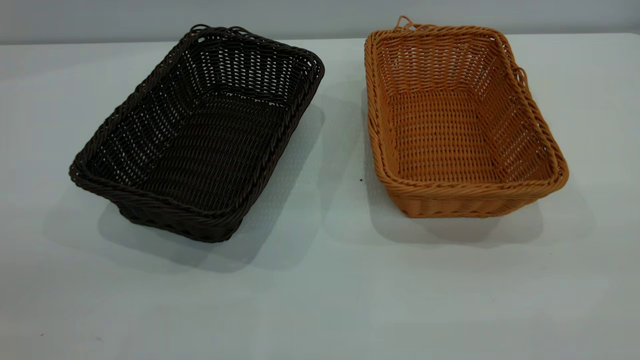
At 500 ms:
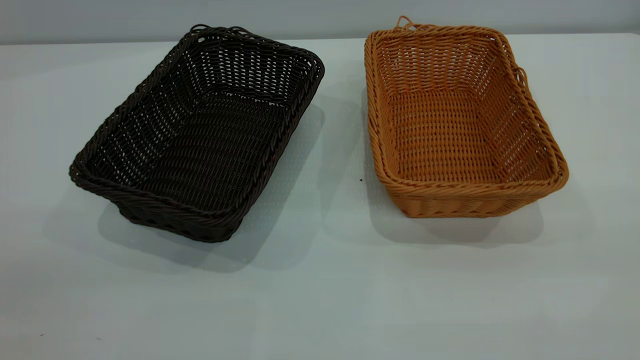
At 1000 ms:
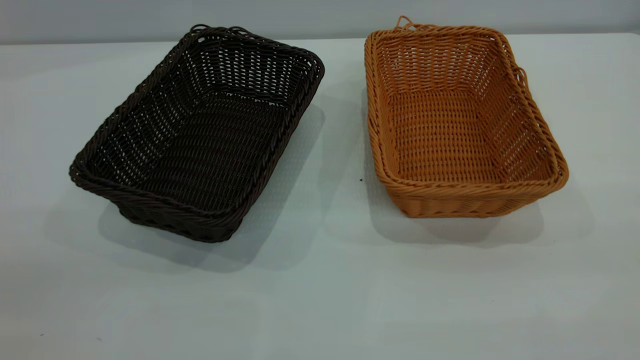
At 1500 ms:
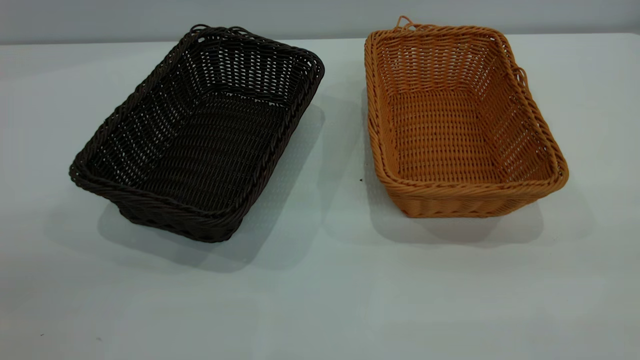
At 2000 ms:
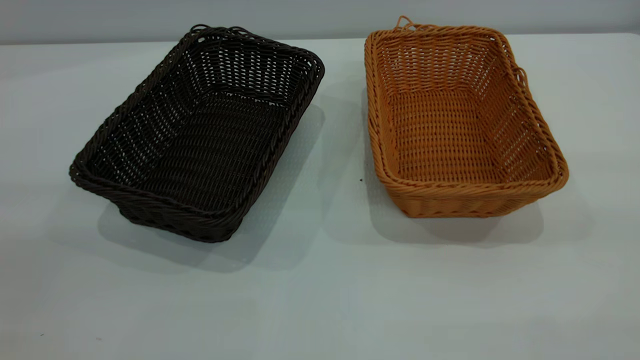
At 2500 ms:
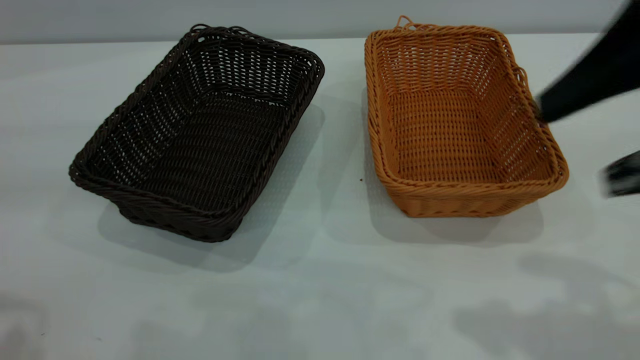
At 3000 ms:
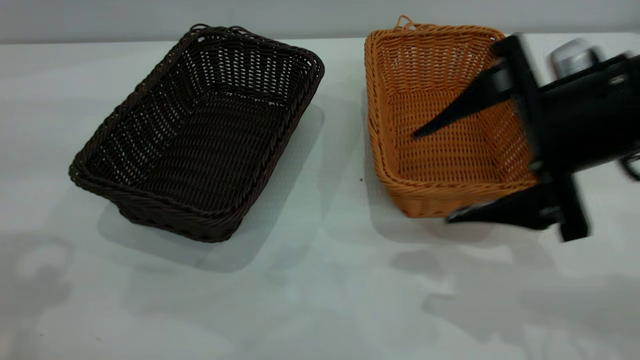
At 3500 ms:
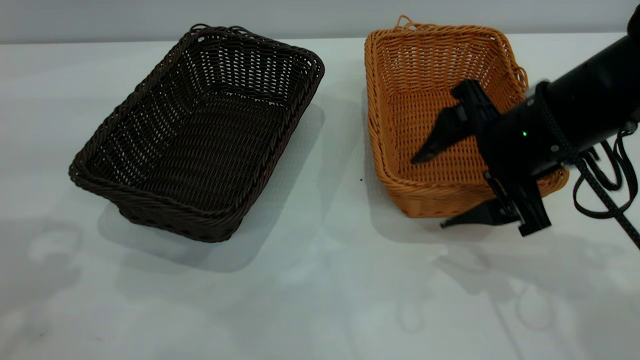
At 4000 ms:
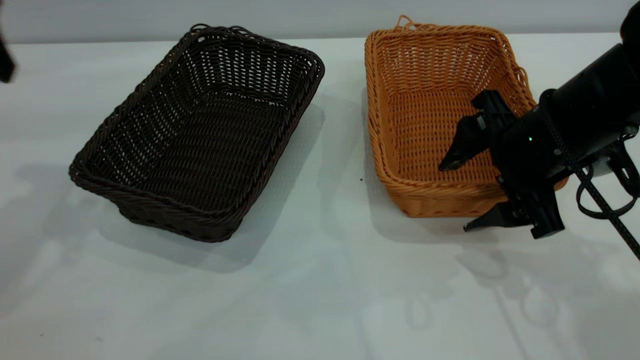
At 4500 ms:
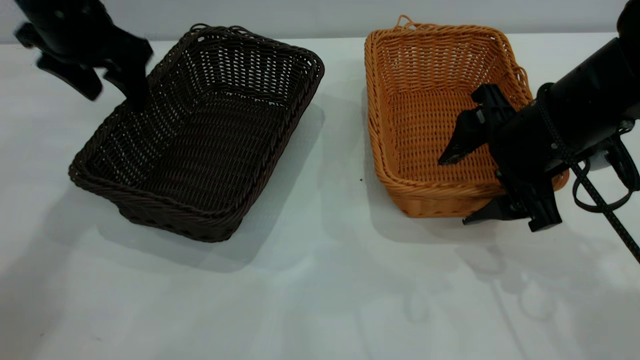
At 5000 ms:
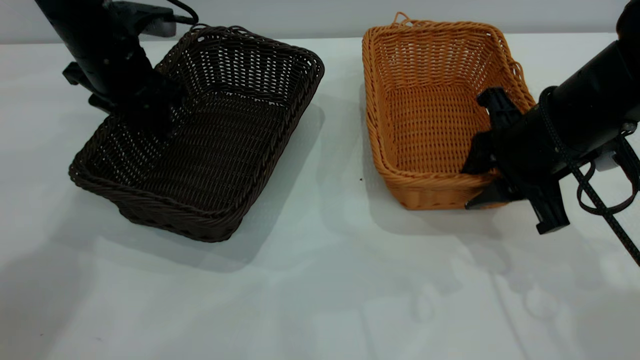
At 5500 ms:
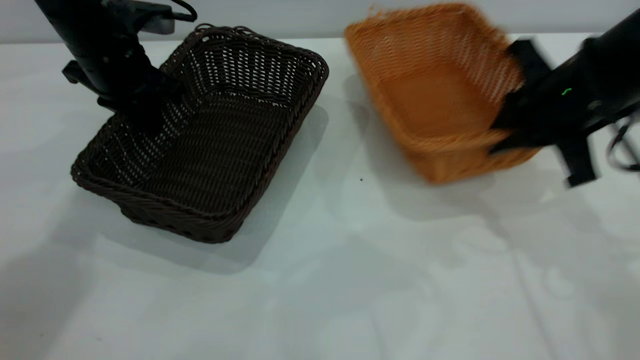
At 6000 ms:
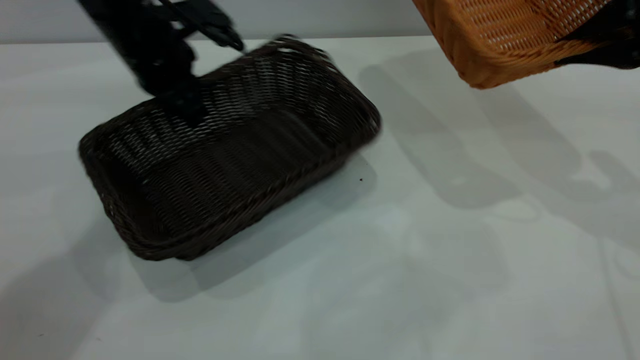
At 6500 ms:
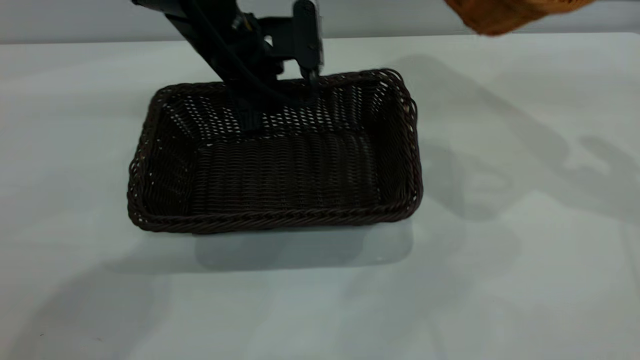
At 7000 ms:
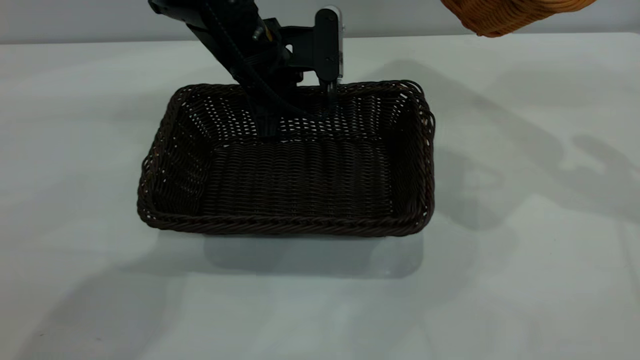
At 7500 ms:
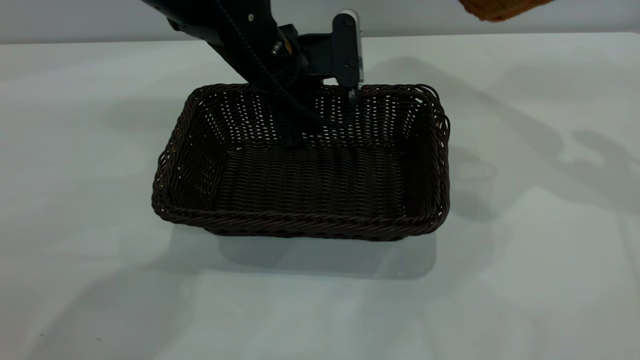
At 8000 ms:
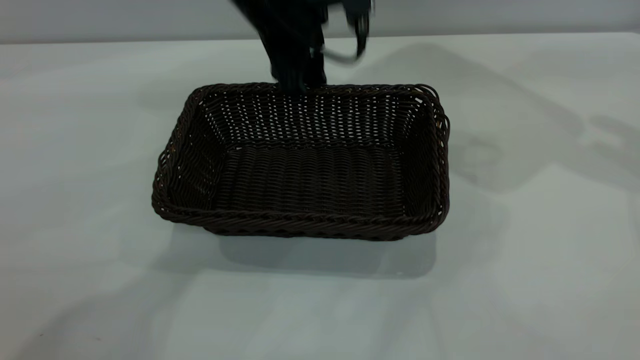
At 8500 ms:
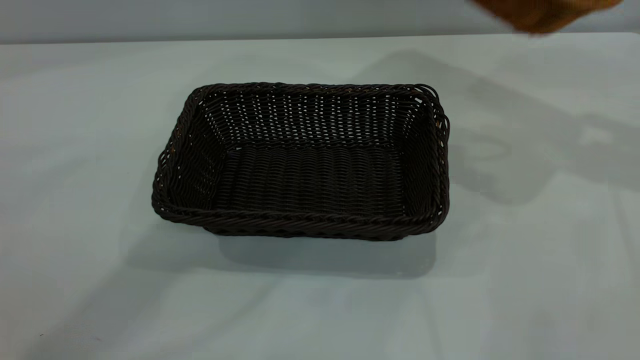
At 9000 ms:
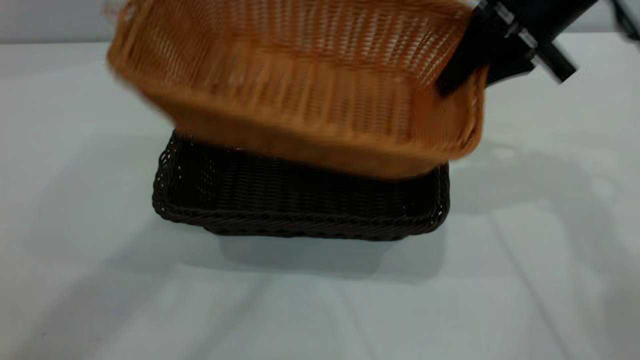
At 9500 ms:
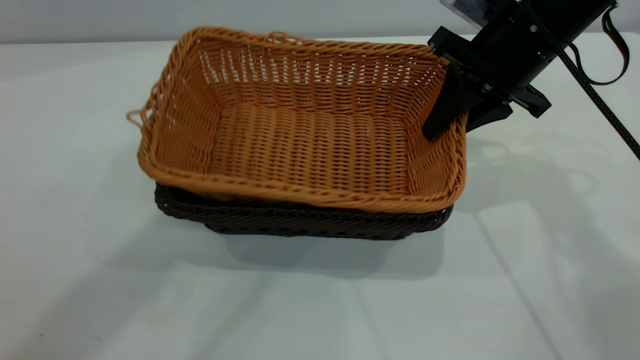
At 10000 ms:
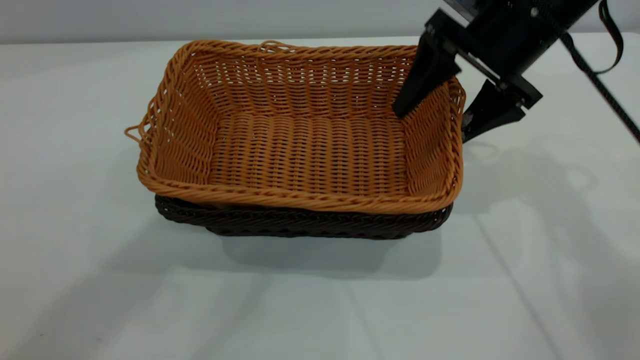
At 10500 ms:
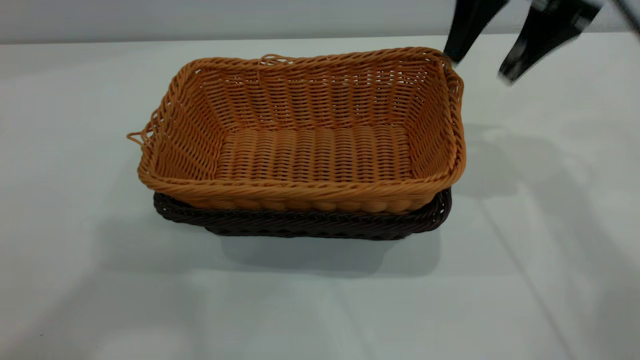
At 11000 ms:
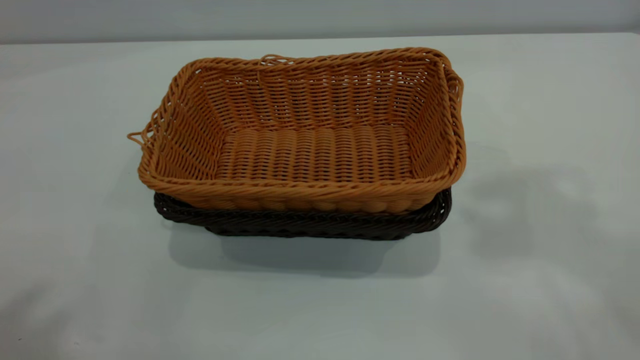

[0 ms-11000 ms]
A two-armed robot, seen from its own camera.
Task of the whole recording: the left gripper grasp the black basket and place it in the center of the table, the right gripper grasp the brown basket and place it inside the black one.
Step, 0 ms to 5500 ms: Pick up the light basket with the right gripper.
Step, 6000 ms to 8000 ms: Move the dark basket to the center of view.
Step, 8500 ms to 10000 ms: Place the light basket on the dark basket.
2000 ms to 3500 ms: The right gripper moves forward and downward, some 30 cm.
3500 ms to 5500 ms: The right gripper ends up about 5 cm from where it was, and closes its fingers, while the left gripper moves forward, downward and to the right, about 25 cm, and closes its fingers.
5500 ms to 7500 ms: The left gripper travels to the right by approximately 20 cm, and opens its fingers; the right gripper is displaced upward and to the right by roughly 15 cm.
7500 ms to 9000 ms: The left gripper moves upward, some 40 cm. The right gripper shifts some 15 cm to the left and downward.
9000 ms to 11000 ms: The left gripper goes about 20 cm backward and to the left. Meanwhile the right gripper heads upward, covering approximately 30 cm, and opens.
